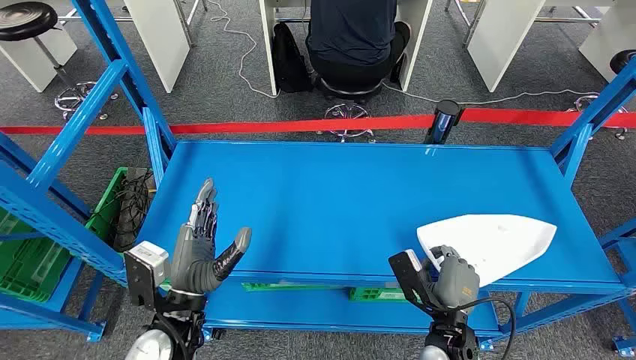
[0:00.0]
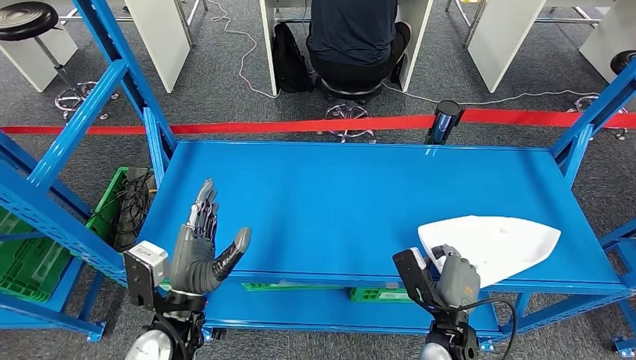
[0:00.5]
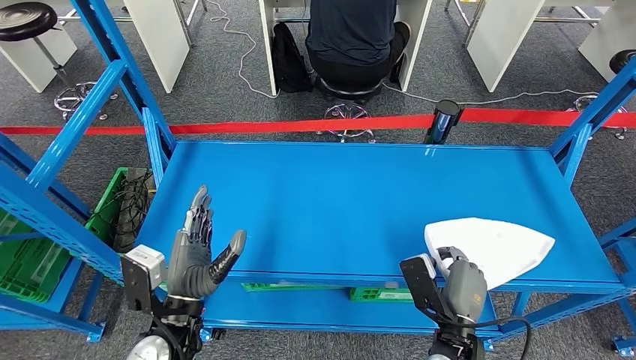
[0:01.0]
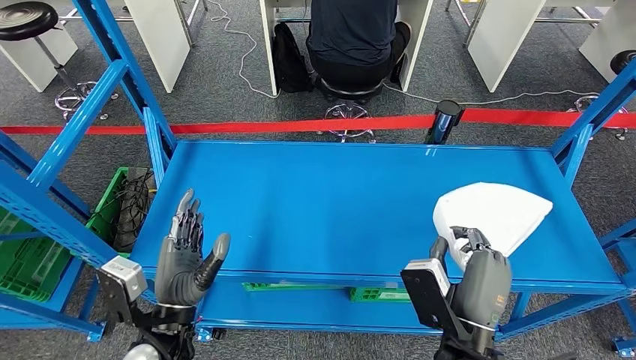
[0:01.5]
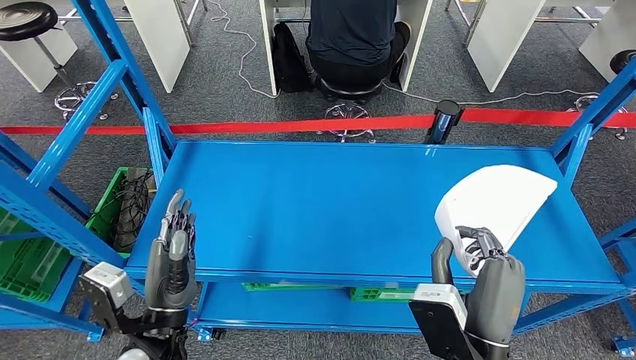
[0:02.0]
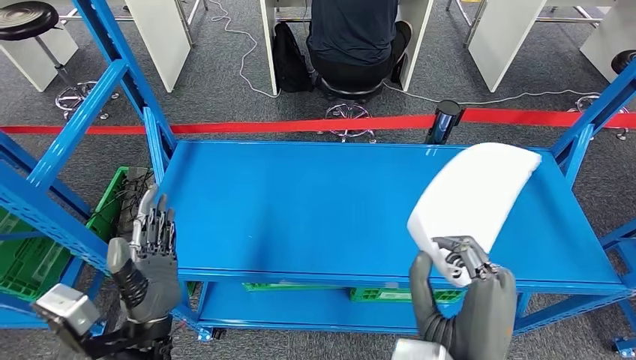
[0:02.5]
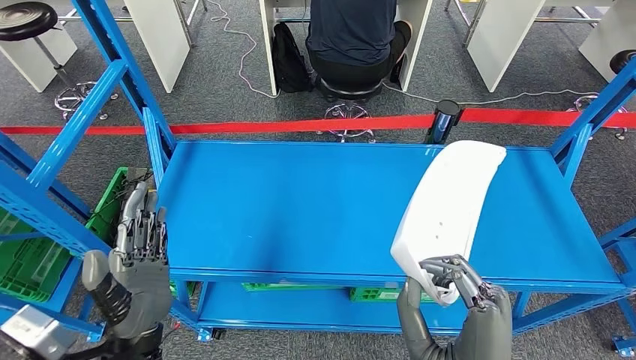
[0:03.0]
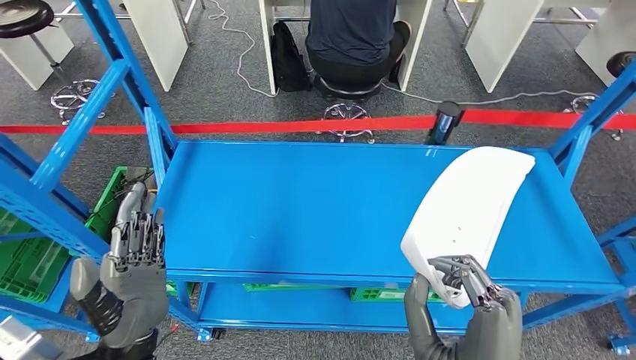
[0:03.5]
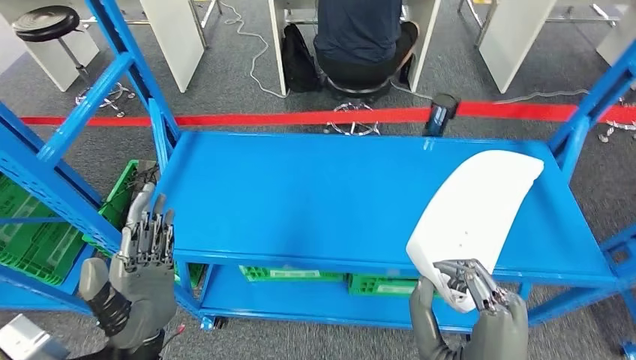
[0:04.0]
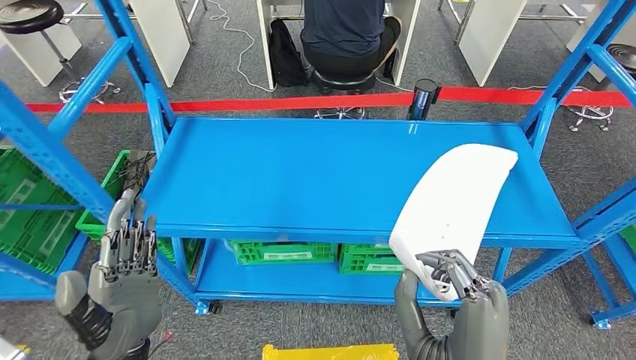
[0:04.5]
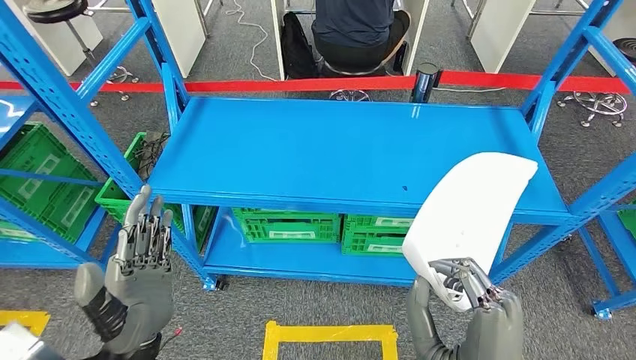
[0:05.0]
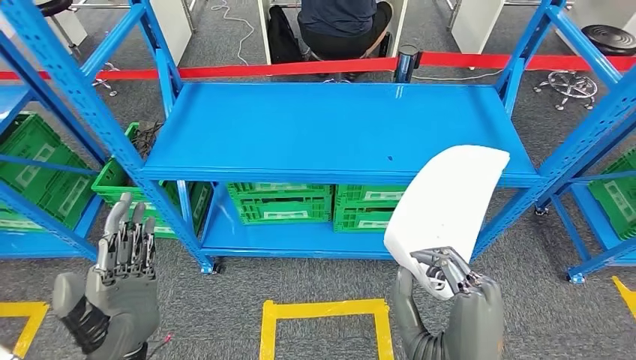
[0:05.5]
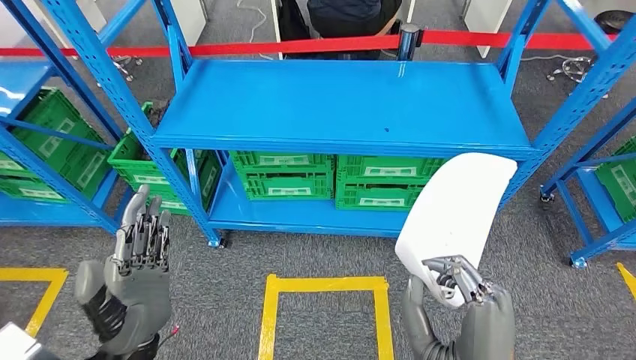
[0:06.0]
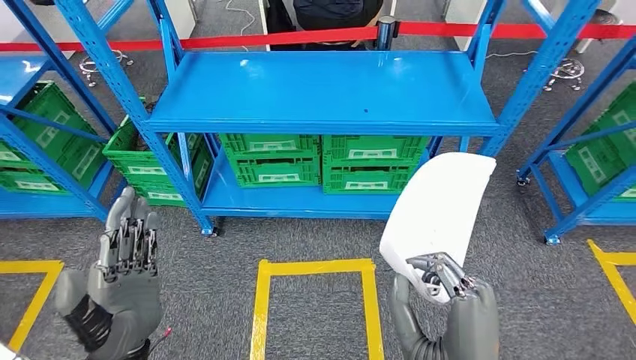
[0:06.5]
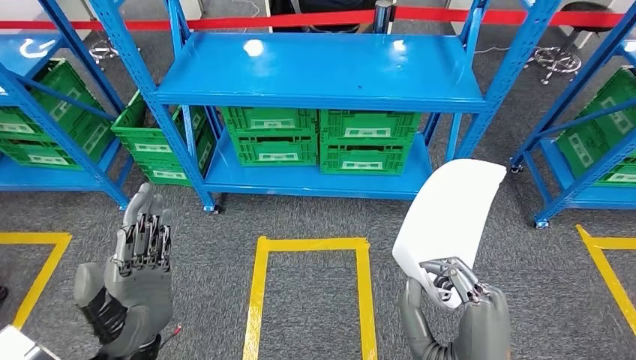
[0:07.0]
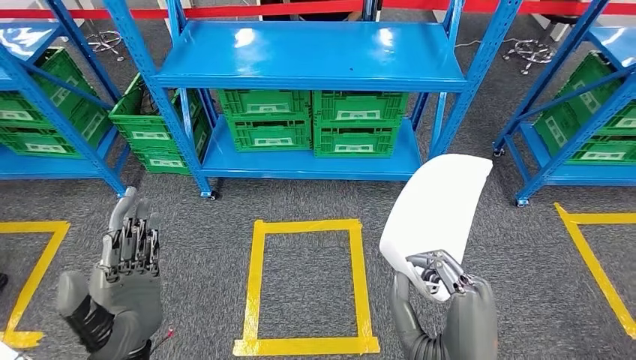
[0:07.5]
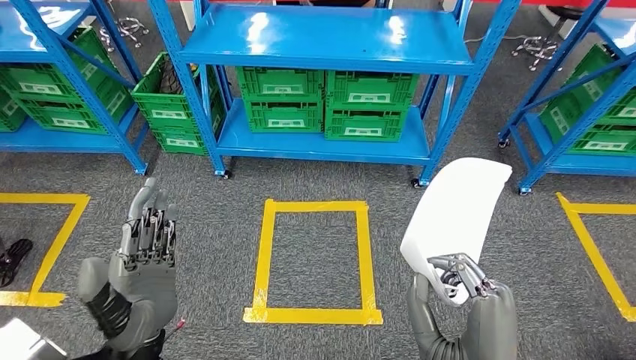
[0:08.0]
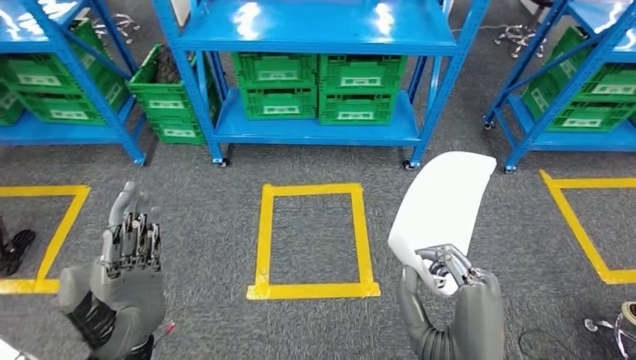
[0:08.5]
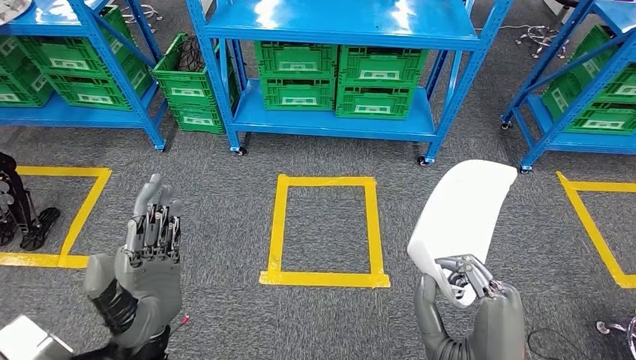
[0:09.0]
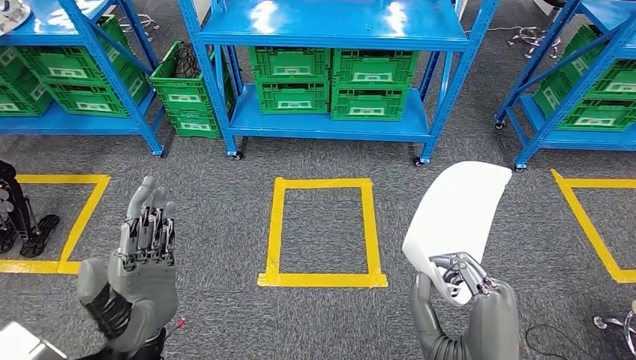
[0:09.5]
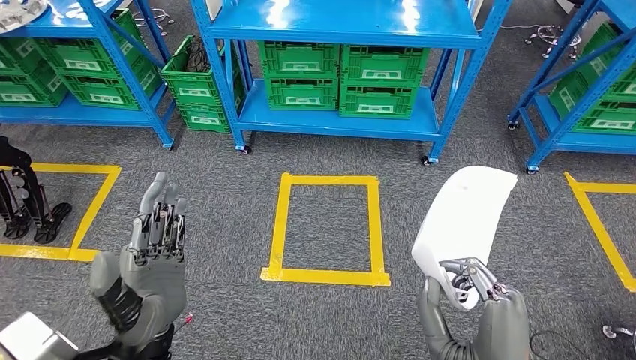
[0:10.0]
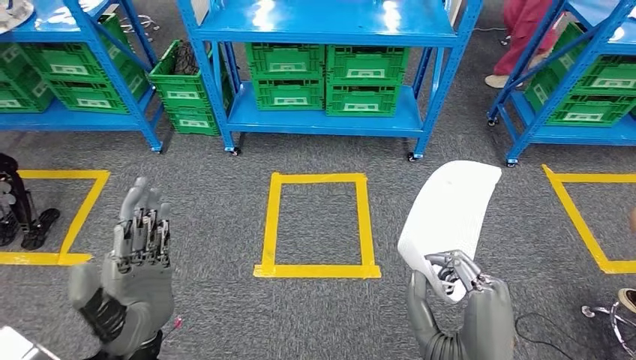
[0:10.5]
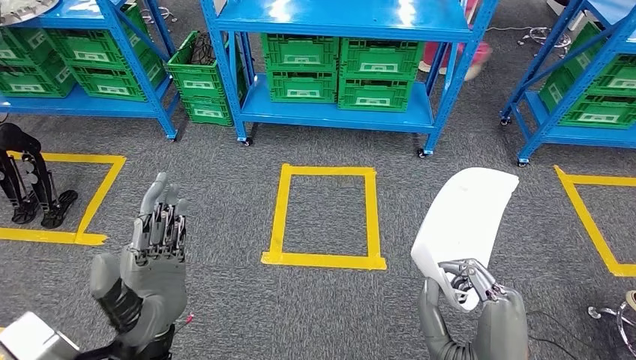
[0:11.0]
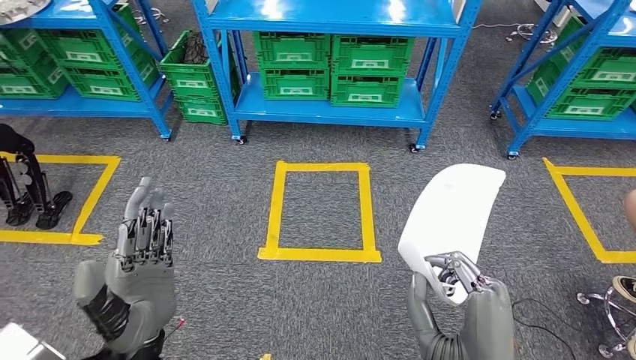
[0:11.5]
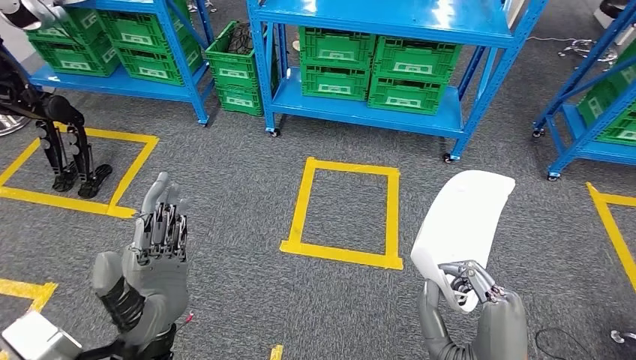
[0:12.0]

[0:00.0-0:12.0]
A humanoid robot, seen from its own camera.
Step, 0:00.0 to 0:05.5: Pick up the small component from the shelf.

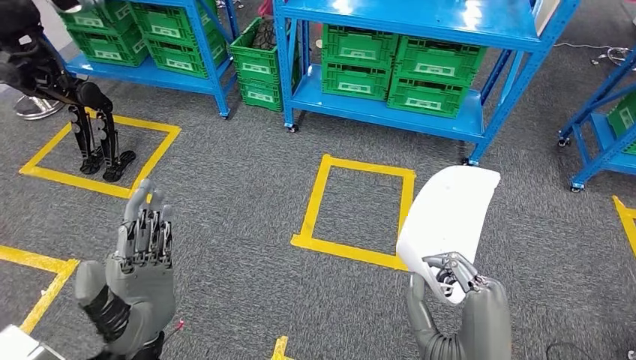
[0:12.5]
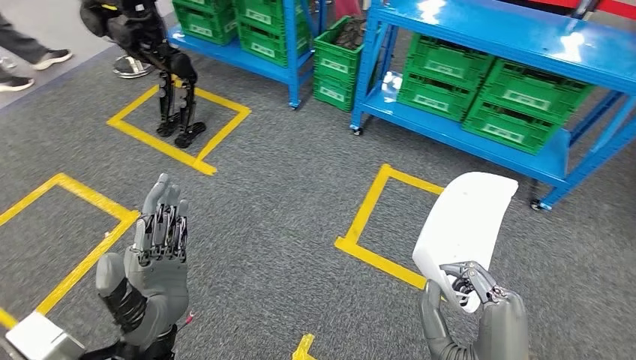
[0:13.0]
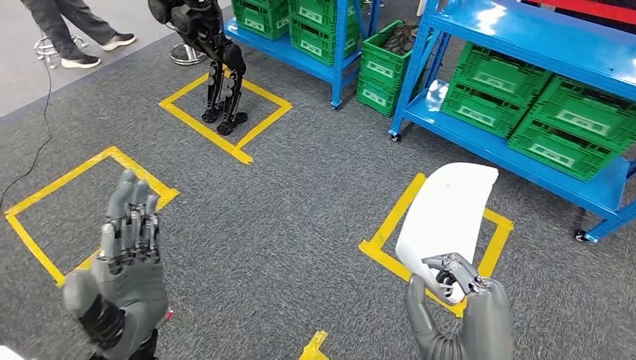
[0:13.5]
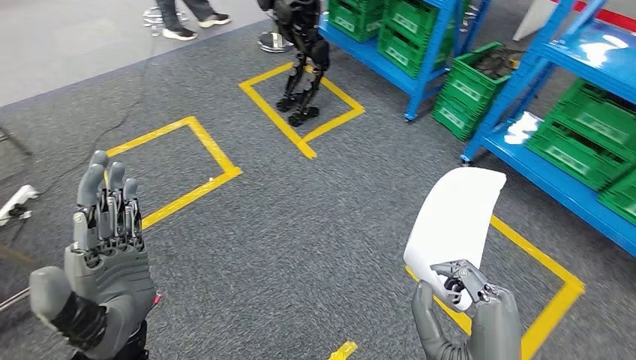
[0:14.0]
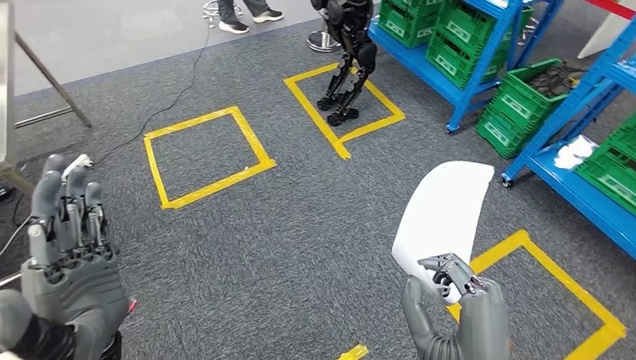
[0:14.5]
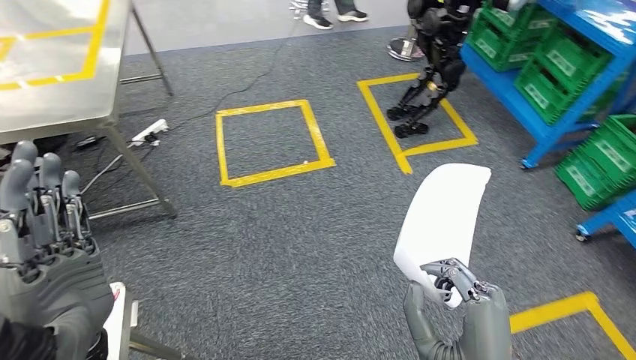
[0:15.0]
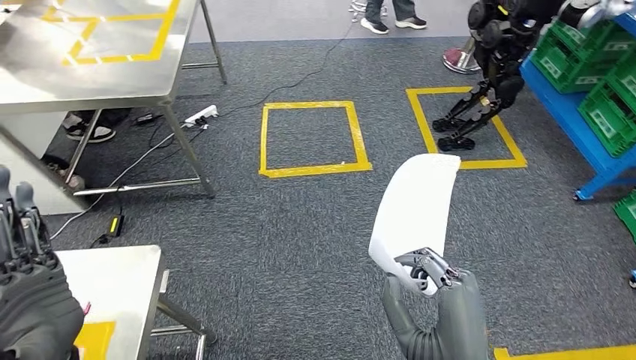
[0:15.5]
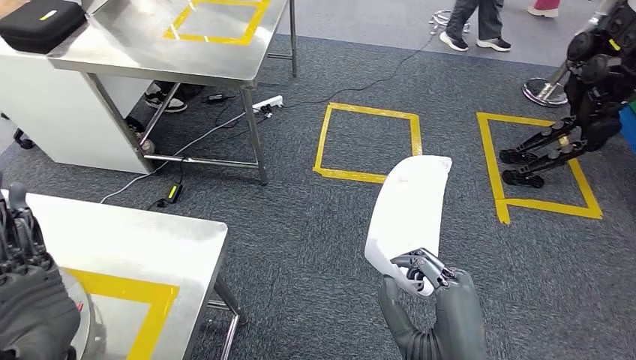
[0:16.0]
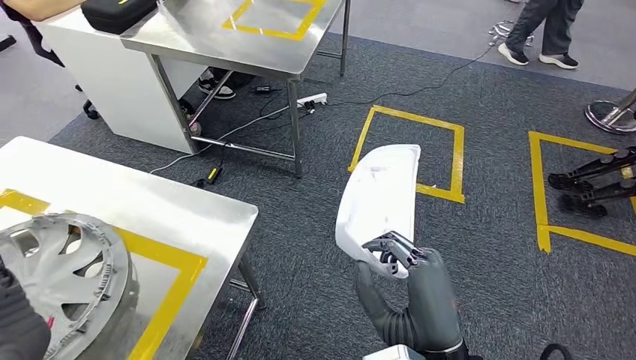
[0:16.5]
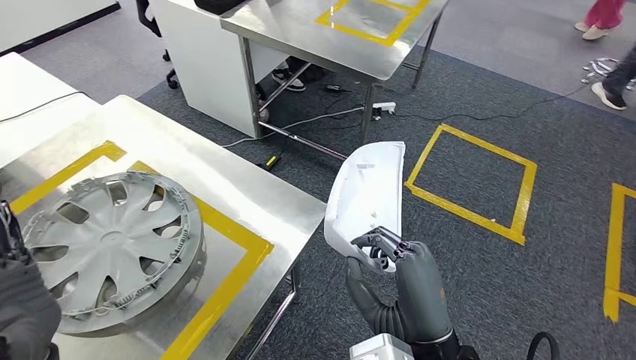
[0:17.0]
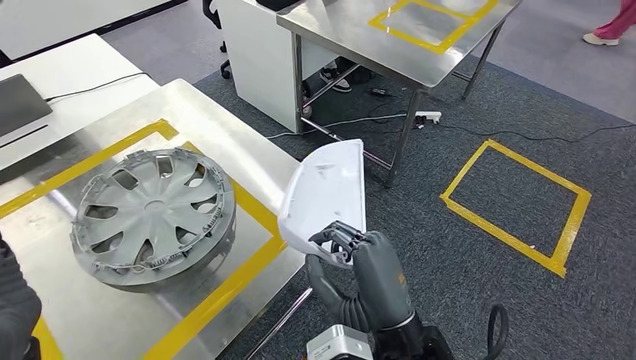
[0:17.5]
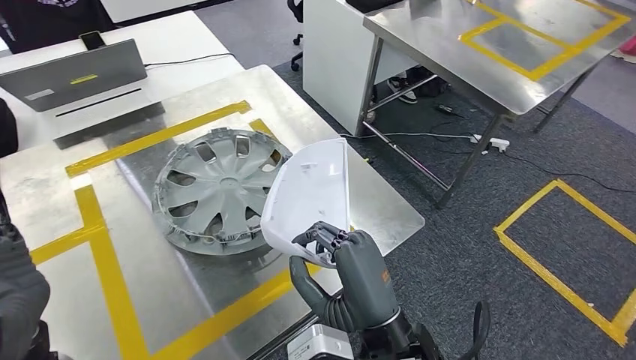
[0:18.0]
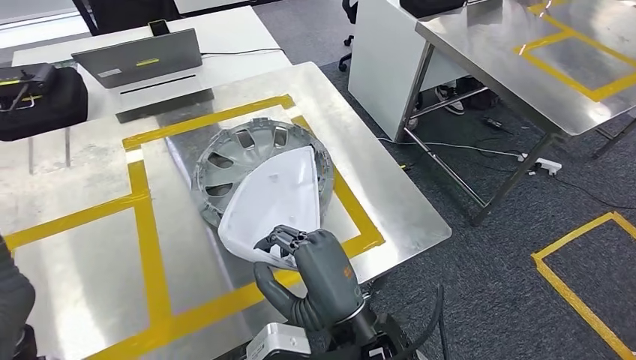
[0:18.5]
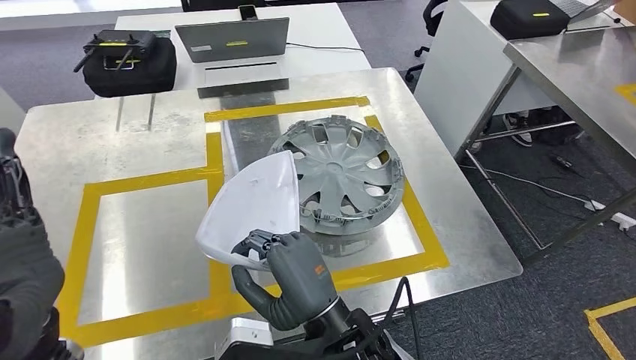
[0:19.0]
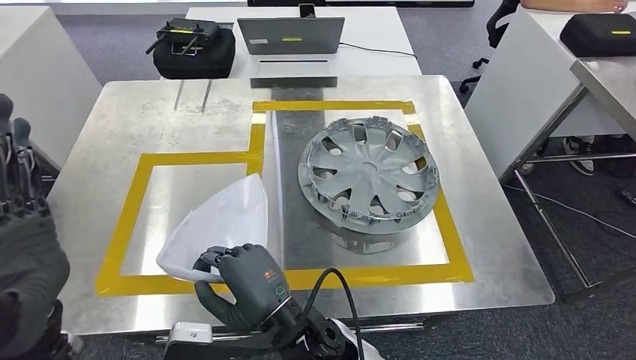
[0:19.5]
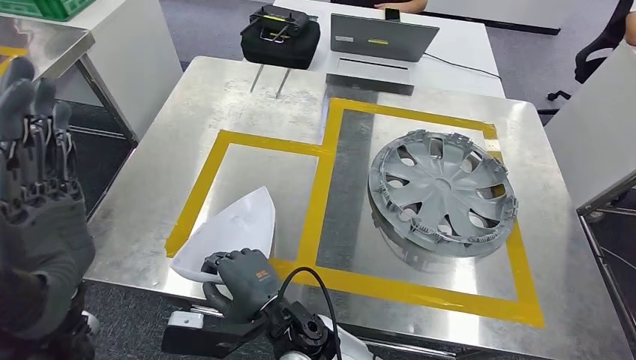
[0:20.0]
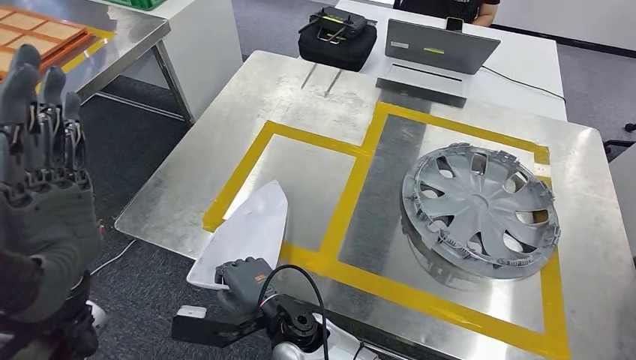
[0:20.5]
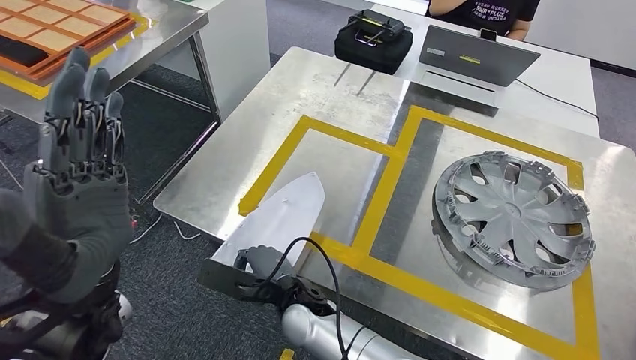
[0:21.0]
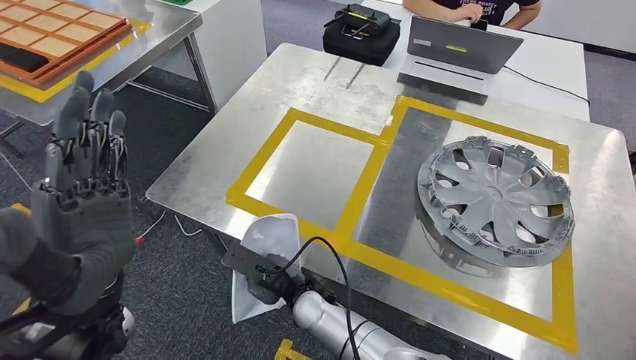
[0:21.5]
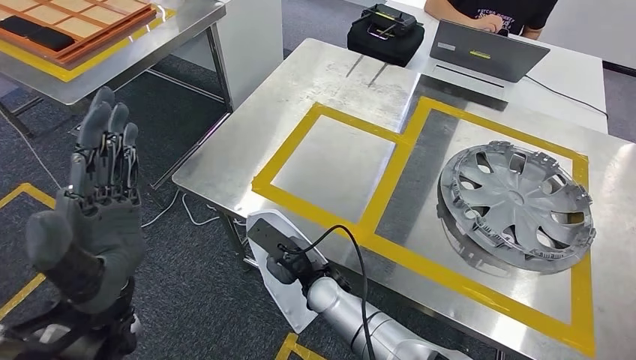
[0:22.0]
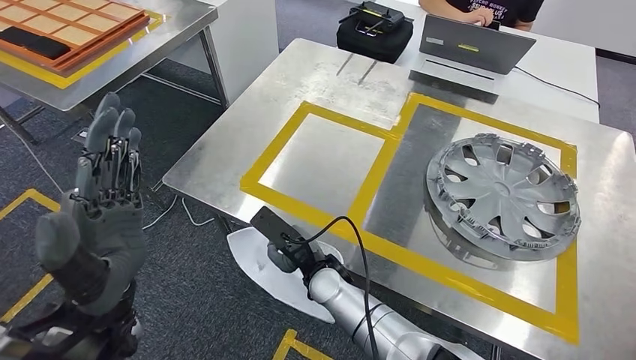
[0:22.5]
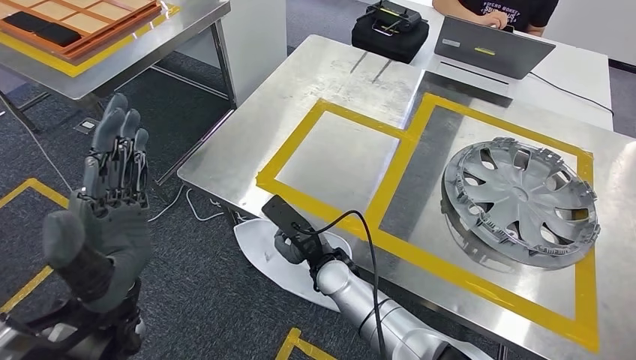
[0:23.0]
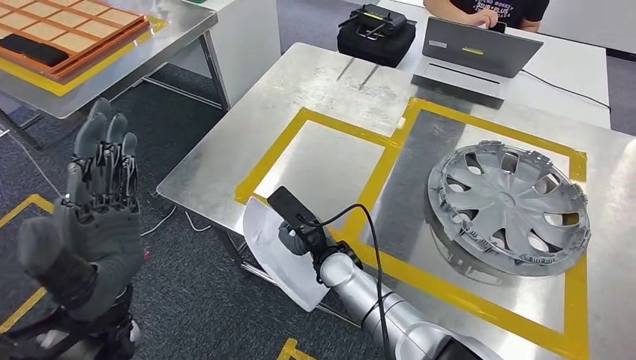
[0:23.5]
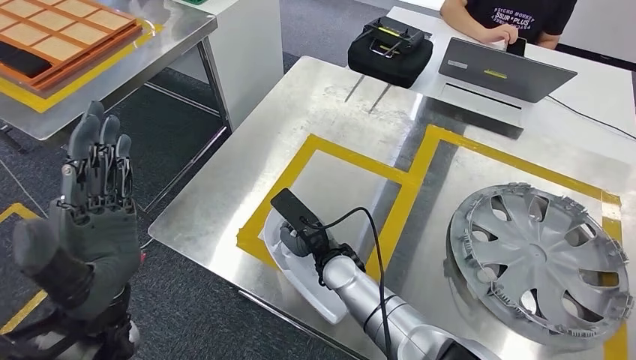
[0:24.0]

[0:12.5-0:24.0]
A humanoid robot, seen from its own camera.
Step, 0:12.5 to 0:18.5: Bring the small component to the front of the workbench.
